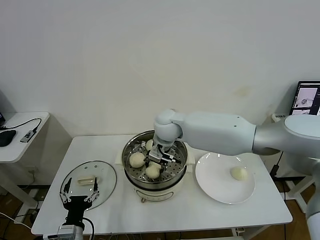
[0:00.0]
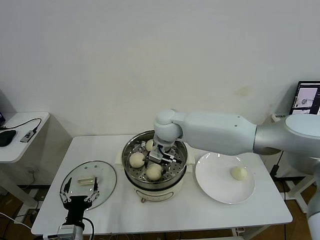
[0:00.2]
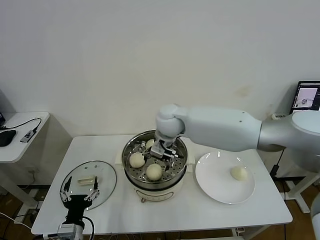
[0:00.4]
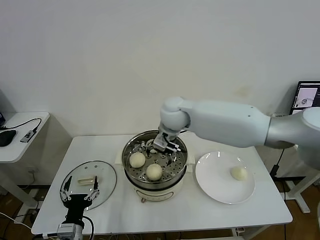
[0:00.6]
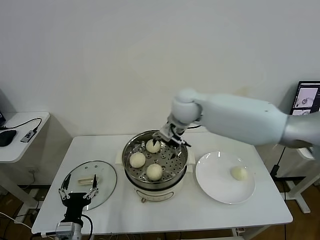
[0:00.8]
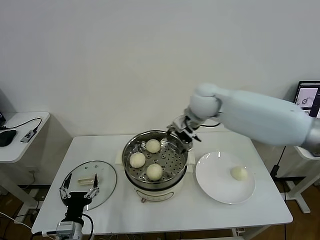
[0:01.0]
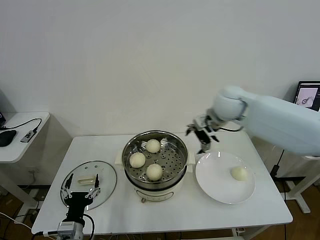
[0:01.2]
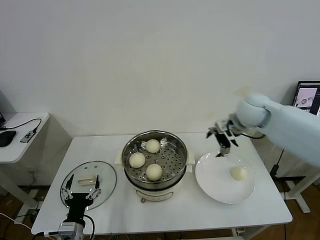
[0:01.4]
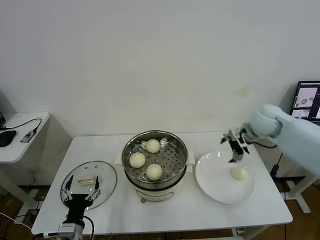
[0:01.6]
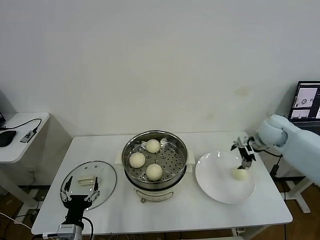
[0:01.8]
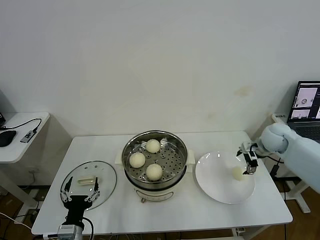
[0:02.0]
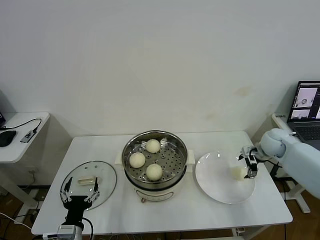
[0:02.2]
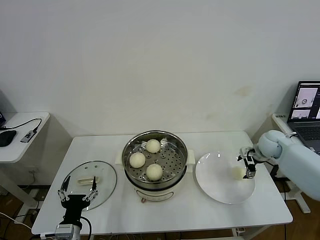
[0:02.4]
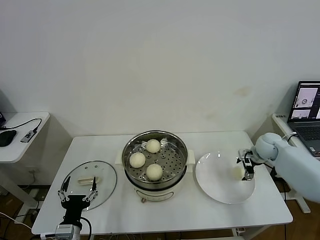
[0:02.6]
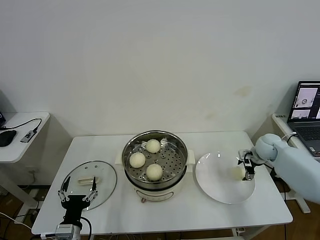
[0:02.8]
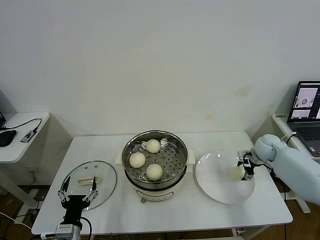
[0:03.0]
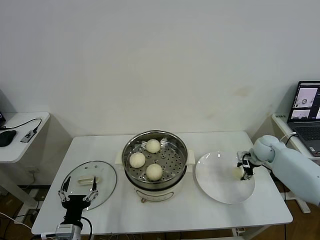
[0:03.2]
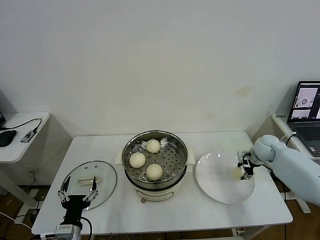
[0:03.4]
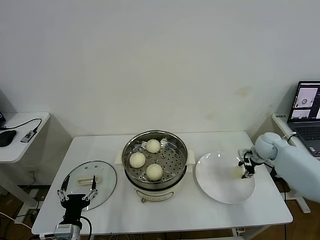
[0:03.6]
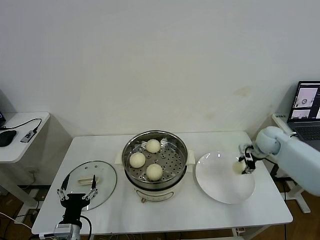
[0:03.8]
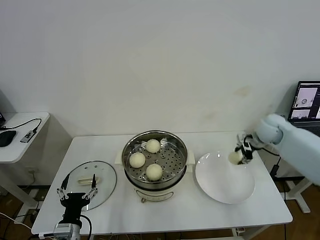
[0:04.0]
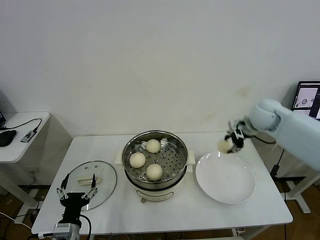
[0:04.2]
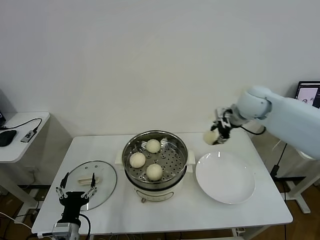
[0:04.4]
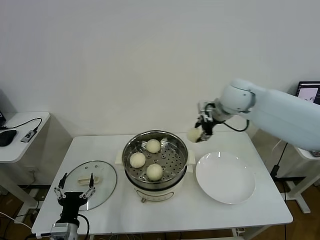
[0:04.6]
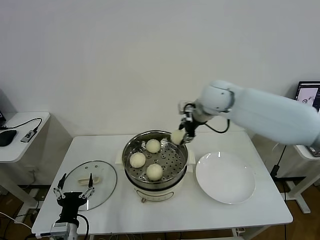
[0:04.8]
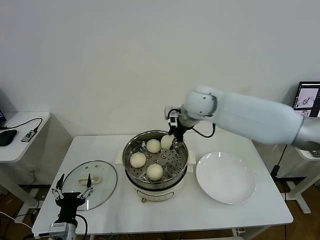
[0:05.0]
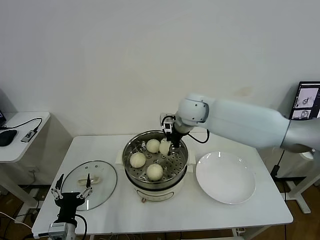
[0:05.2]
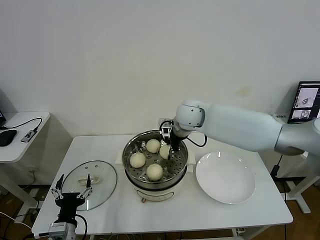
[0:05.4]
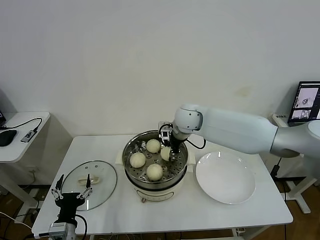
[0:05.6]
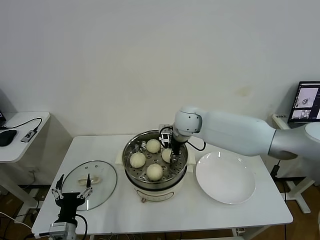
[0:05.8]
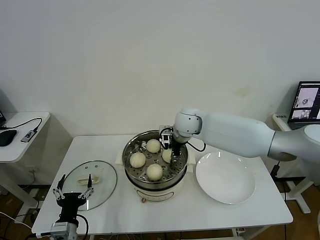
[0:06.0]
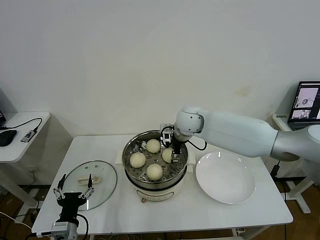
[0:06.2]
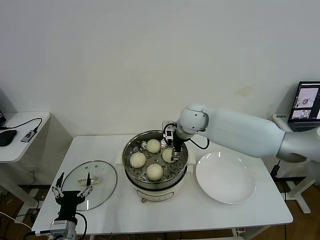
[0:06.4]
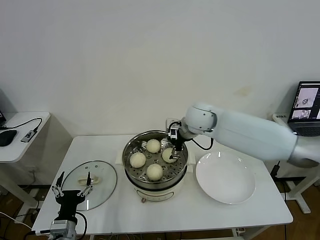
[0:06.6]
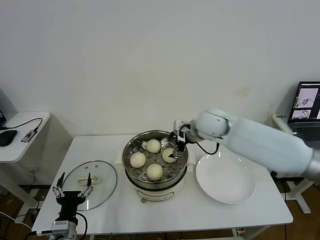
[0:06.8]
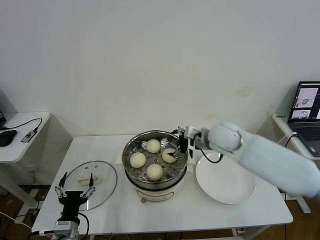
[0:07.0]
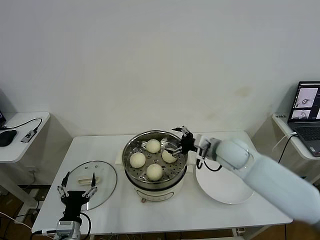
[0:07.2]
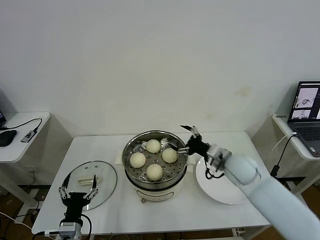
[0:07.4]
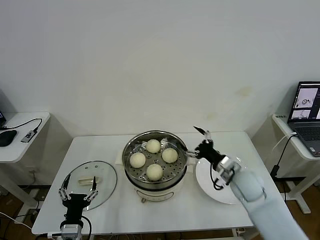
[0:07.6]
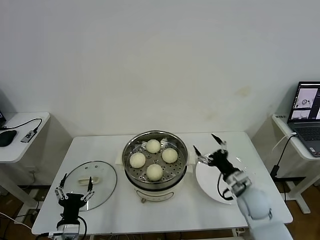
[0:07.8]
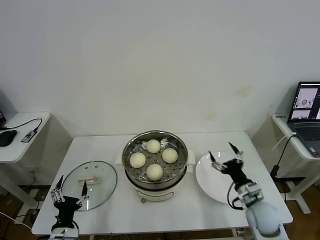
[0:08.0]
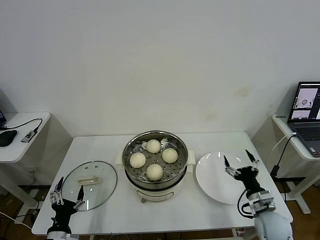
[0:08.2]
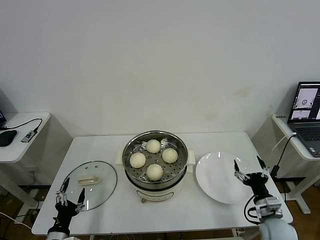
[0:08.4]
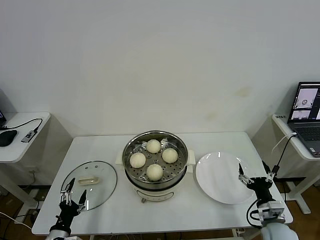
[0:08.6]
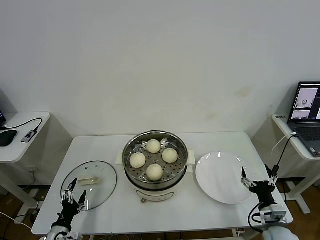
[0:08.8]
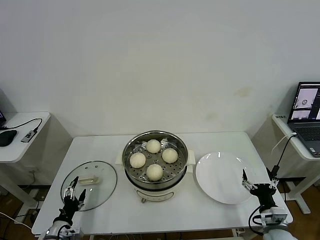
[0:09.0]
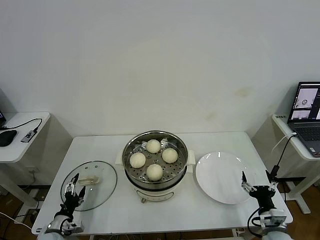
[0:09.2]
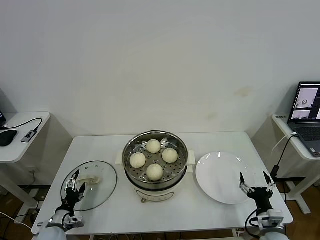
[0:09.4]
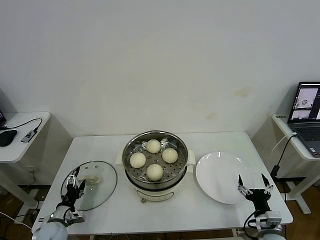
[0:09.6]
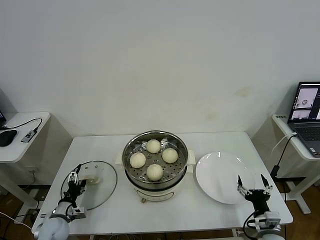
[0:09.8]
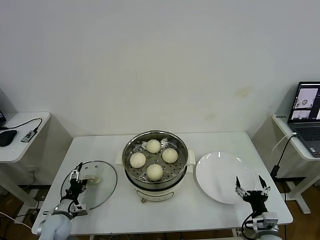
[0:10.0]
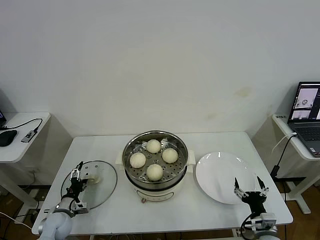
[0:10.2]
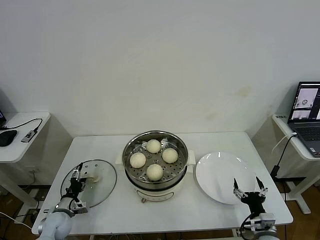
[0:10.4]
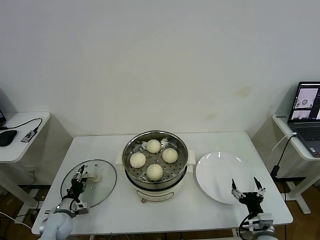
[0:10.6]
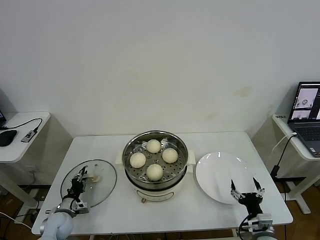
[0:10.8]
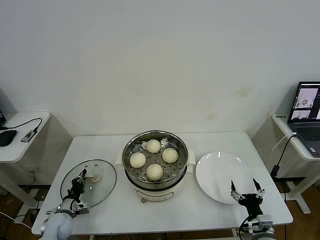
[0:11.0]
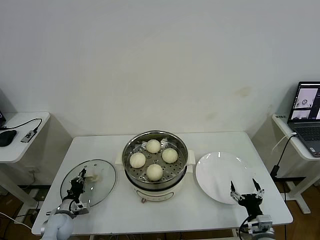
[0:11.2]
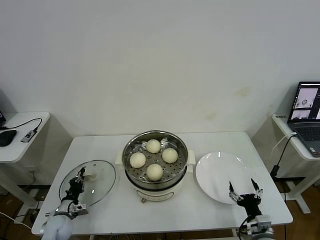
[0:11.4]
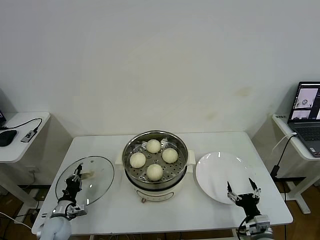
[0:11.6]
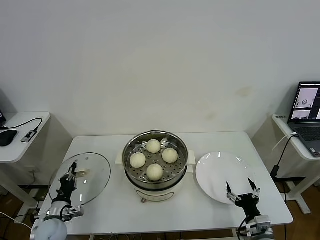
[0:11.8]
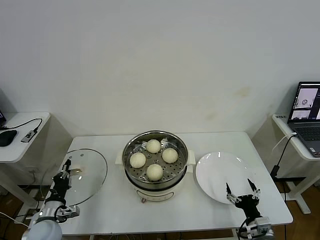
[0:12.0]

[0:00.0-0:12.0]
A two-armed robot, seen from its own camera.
Task of the whole recording: take steamed baozi put them in steamer then cover it.
Step, 0:00.8 to 0:03.4: Grasp the baozi in the plate with right gripper.
Step, 0:03.8 to 0:06.4: Place the baozi on the steamer with right gripper.
Step, 0:06.6 to 0:11.2: Grasp the pot lid with left gripper.
0:00.0 to 0:01.6: The right gripper travels to the right by approximately 30 cm, and opens up.
0:01.6 to 0:03.0: The right gripper goes about 15 cm downward and to the right, and closes its fingers.
0:03.0 to 0:04.4: The right gripper is displaced upward and to the left by roughly 25 cm, and closes.
0:04.4 to 0:06.0: The right gripper shifts roughly 20 cm to the left and downward.
0:06.0 to 0:07.6: The right gripper heads to the right, backward and downward, covering roughly 25 cm, and opens.
0:07.6 to 0:09.0: The right gripper is displaced backward, downward and to the right by roughly 20 cm. The left gripper travels to the left and downward by about 10 cm.
0:09.0 to 0:10.4: The left gripper travels forward by approximately 10 cm.
0:10.4 to 0:12.0: The left gripper is displaced upward by roughly 5 cm, and closes.

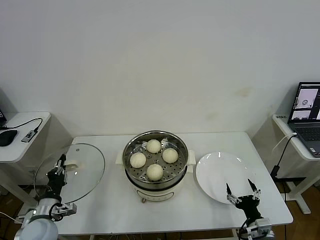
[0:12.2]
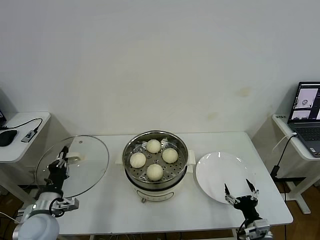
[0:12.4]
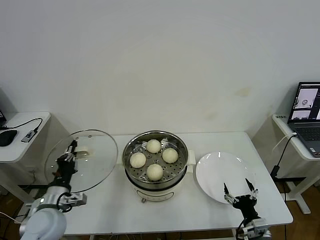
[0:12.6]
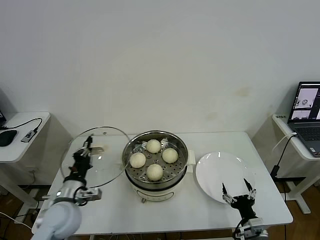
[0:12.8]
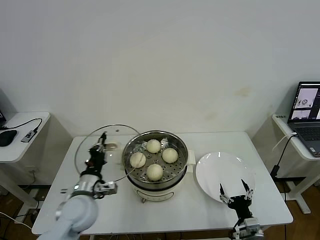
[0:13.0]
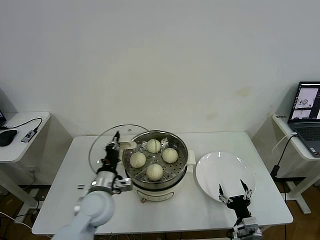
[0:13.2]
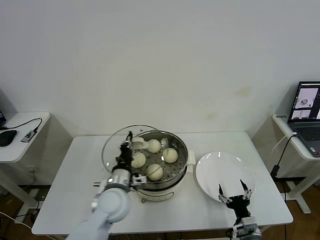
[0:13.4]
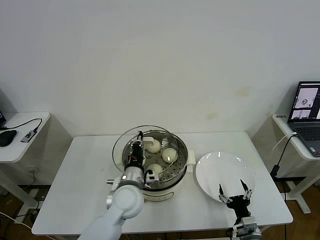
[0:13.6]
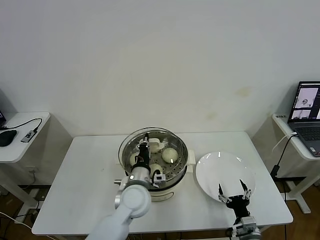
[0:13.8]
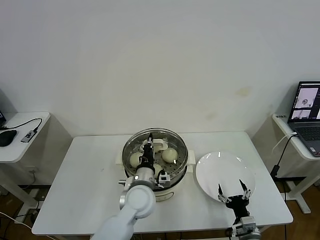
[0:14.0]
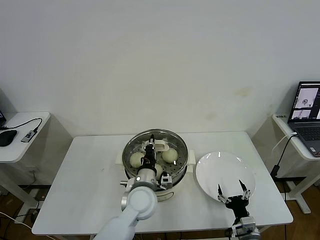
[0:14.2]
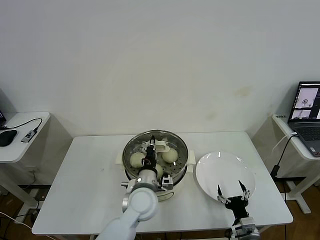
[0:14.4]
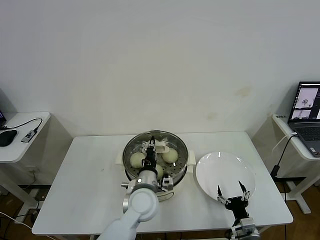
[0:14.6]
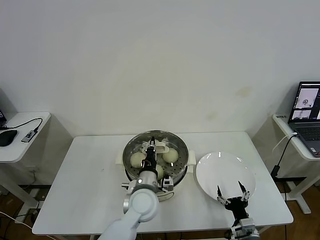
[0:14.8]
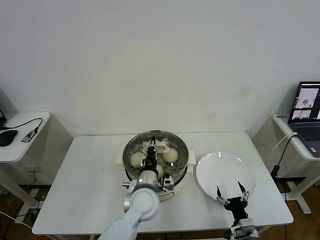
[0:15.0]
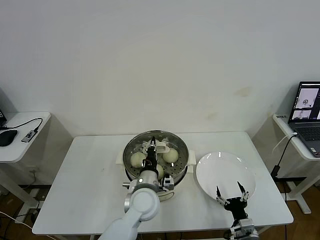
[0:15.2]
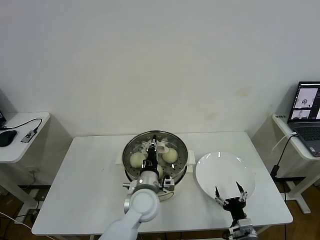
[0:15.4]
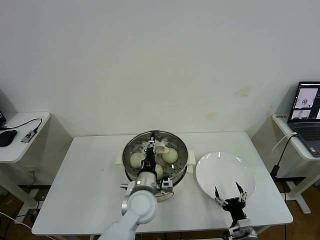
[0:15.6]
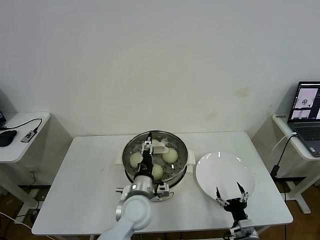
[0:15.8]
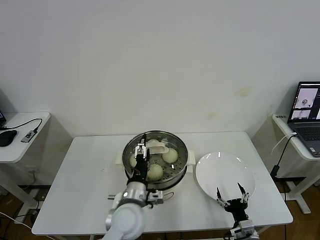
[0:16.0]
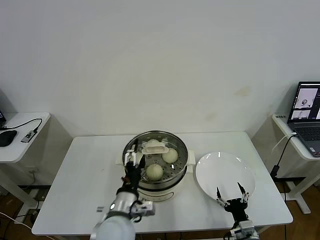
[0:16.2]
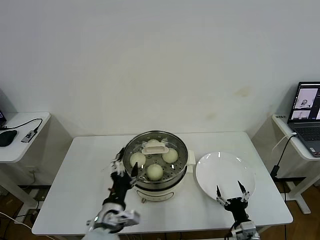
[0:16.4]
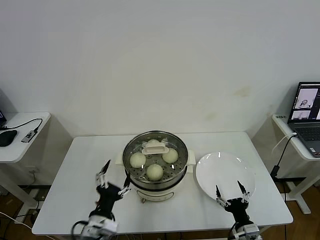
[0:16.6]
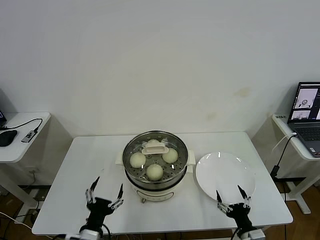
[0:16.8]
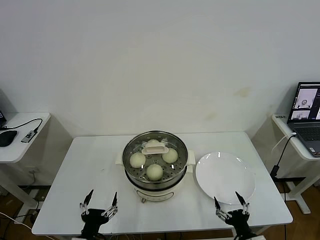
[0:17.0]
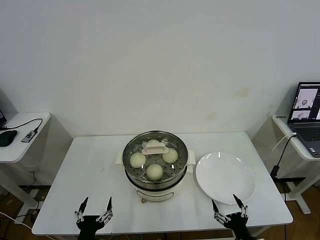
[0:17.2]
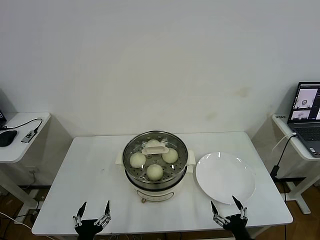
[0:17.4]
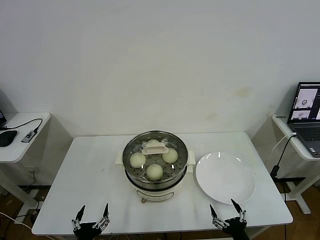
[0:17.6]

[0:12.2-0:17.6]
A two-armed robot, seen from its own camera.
Task of the whole recording: take steamed baozi put them in steamer then cover it.
Step, 0:12.2 to 0:16.0: Place the pot lid on the steamer with left gripper.
0:12.2 to 0:13.6: The left gripper travels to the right by roughly 25 cm.
0:13.6 to 0:15.0: The left gripper travels to the right by some 5 cm.
0:15.0 to 0:16.2: The left gripper moves backward and to the left, roughly 10 cm, and opens its fingers.
0:16.2 to 0:17.6: The left gripper travels backward, to the left and downward by approximately 25 cm, while the right gripper travels backward by roughly 5 cm.
